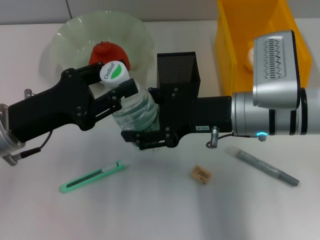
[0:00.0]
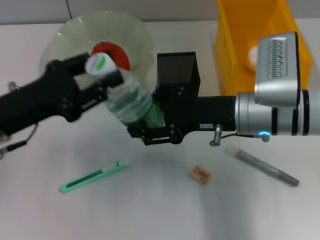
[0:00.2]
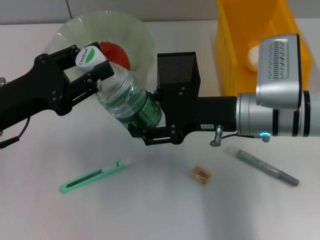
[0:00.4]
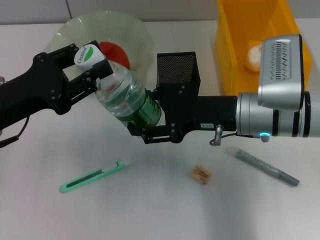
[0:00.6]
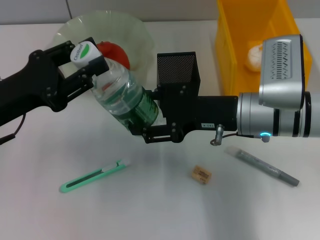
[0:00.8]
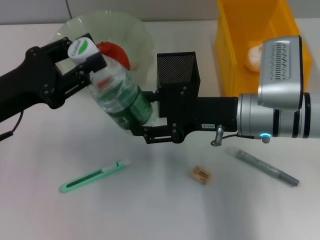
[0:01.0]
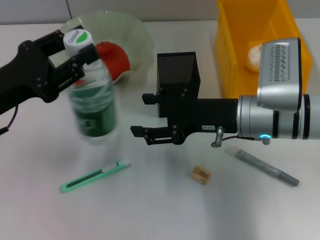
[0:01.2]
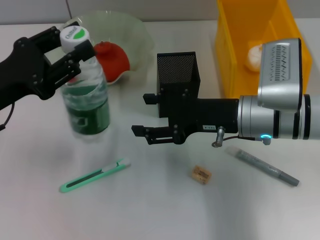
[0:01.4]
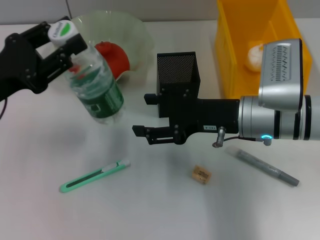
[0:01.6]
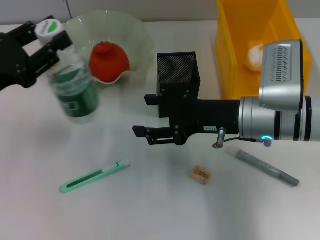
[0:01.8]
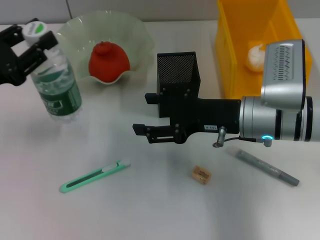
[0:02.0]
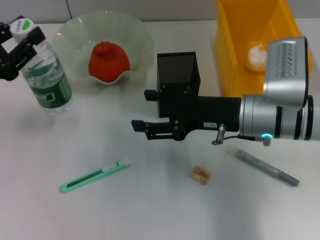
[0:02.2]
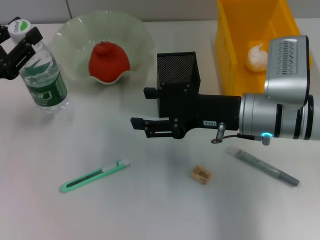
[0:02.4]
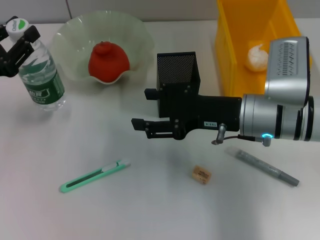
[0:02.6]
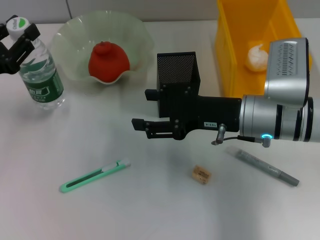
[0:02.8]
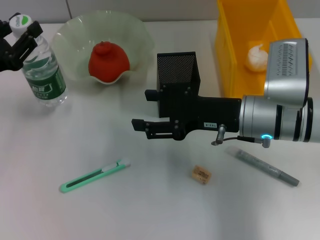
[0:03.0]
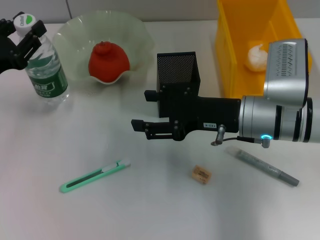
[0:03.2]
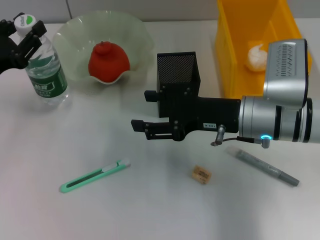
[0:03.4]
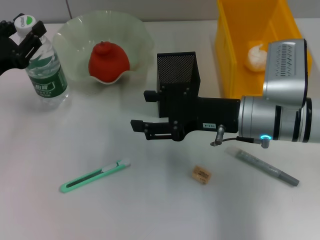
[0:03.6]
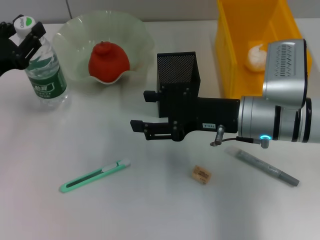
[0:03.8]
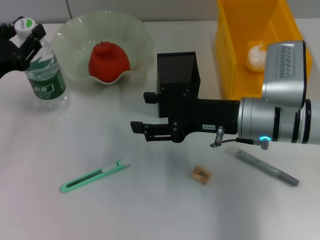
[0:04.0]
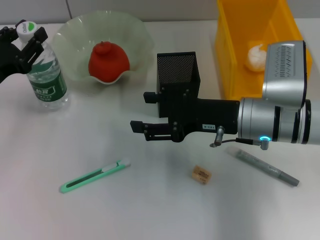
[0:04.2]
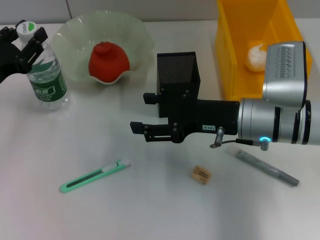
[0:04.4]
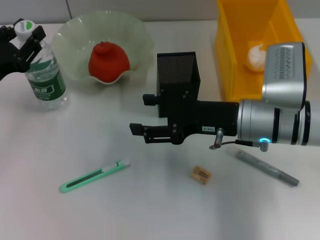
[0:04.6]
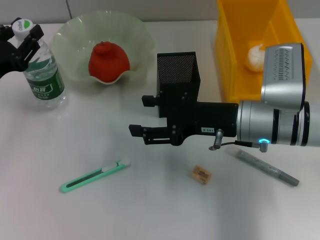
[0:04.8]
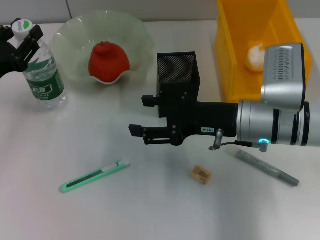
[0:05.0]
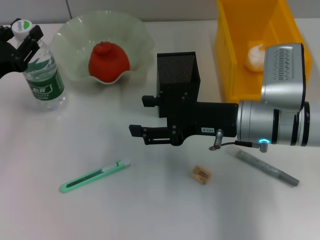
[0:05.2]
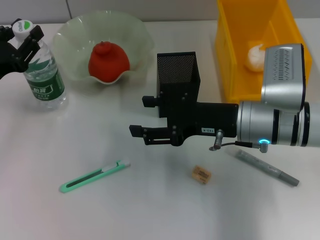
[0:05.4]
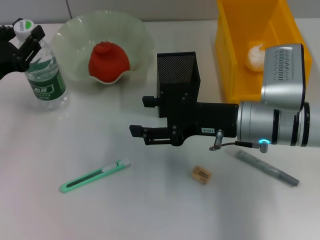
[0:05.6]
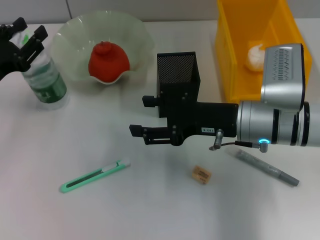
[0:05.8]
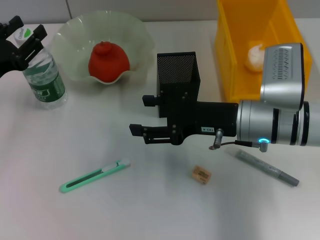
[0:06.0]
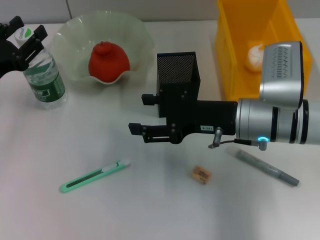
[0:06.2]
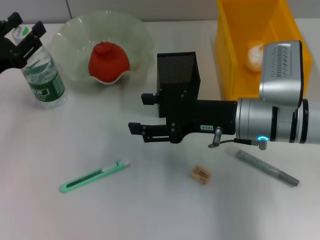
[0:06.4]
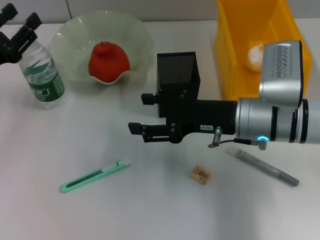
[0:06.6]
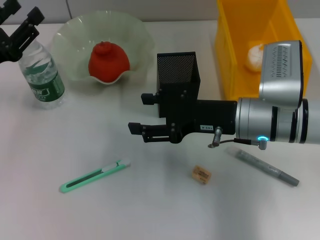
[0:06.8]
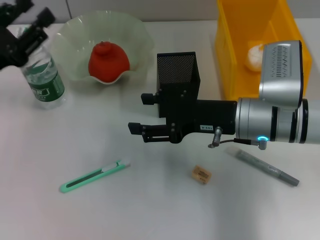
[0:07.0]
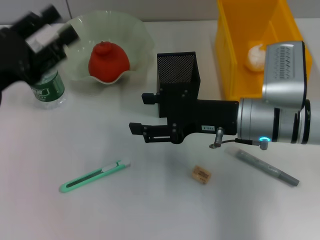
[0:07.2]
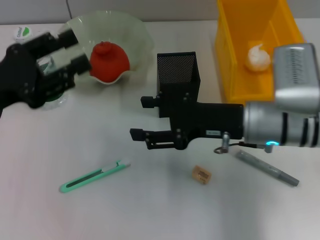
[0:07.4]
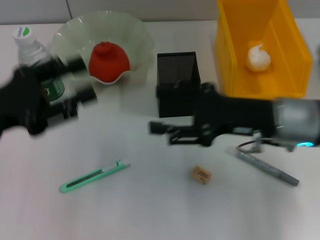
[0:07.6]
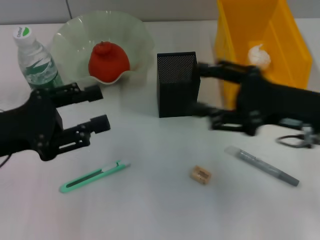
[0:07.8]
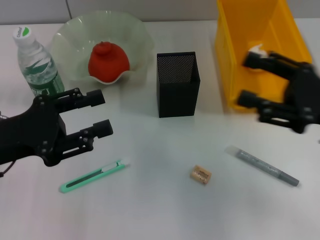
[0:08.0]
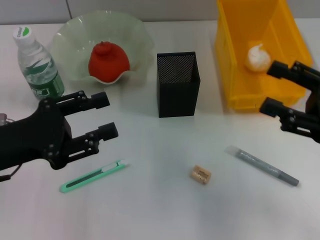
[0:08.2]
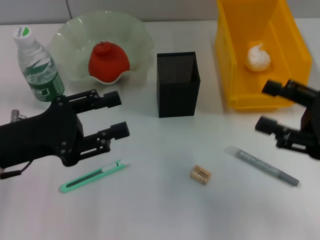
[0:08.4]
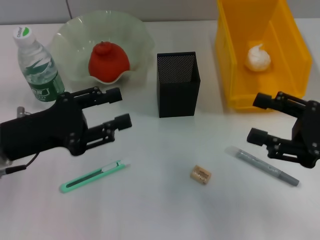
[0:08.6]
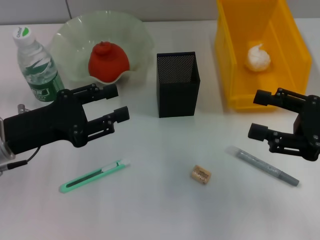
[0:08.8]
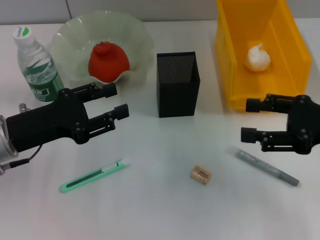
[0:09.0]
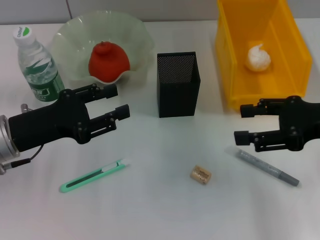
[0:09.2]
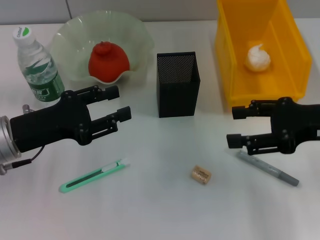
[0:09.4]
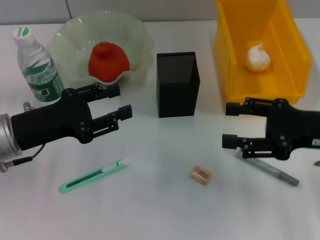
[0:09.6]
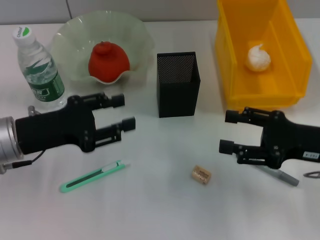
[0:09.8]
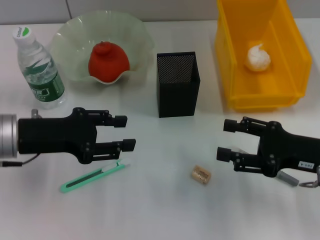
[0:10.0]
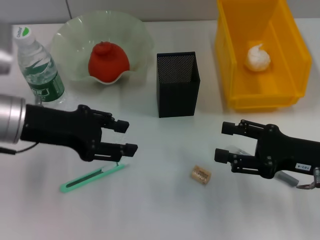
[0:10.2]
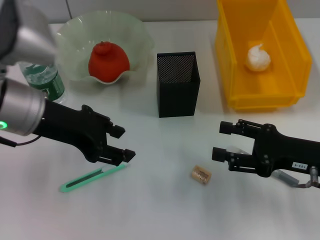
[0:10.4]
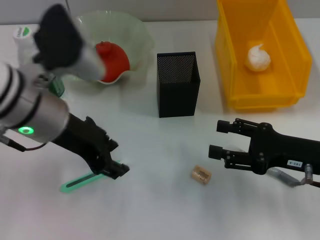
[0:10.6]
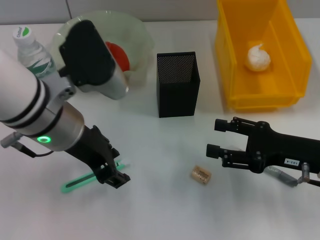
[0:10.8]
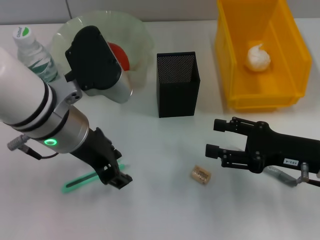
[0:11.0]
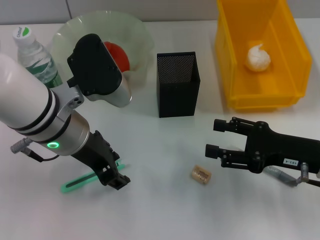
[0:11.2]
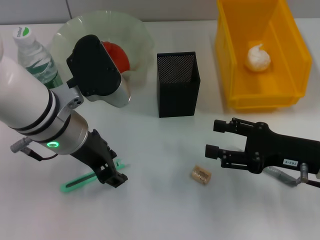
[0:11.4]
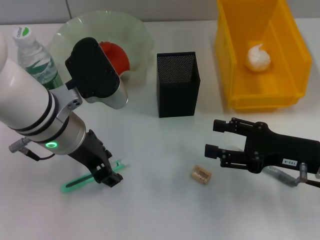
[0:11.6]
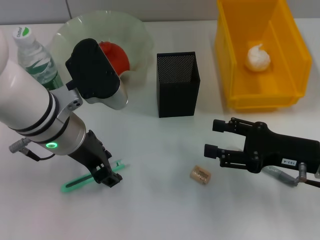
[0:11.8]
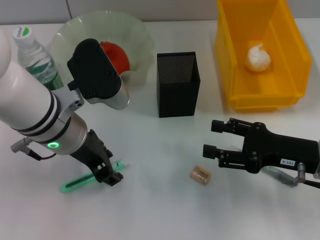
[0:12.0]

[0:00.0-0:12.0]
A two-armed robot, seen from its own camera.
Step, 0:01.2 to 0:06.0: Place the water bottle on the table with the left hand.
0:00.0 to 0:01.6: The left gripper changes place by approximately 5 cm.
0:03.0 to 0:04.4: The grippers move only a little.
0:04.4 to 0:06.0: Both grippers stay put.
0:06.0 to 0:07.6: The left gripper is displaced backward by approximately 5 cm.
0:07.6 to 0:09.0: The left gripper moves some 5 cm. Meanwhile the right gripper moves to the right, roughly 10 cm.
0:09.0 to 0:10.4: The left gripper goes roughly 10 cm upward and to the right, while the right gripper shifts approximately 10 cm downward.
0:10.4 to 0:12.0: The left gripper heads to the right, covering some 5 cm.

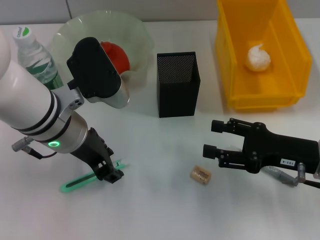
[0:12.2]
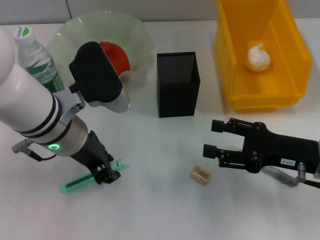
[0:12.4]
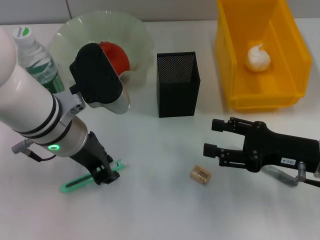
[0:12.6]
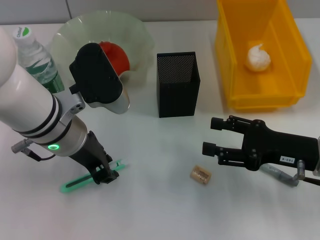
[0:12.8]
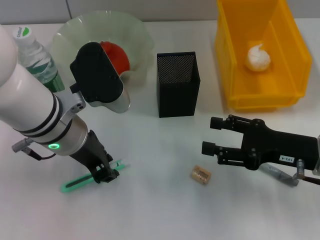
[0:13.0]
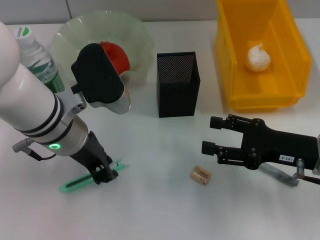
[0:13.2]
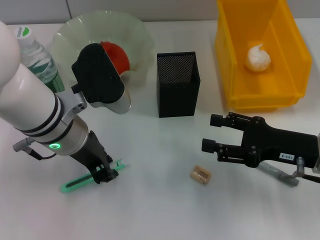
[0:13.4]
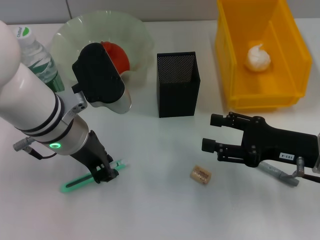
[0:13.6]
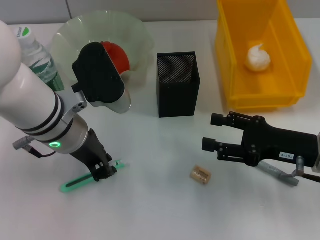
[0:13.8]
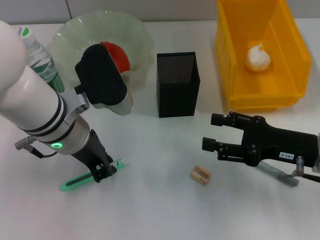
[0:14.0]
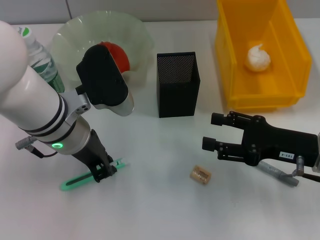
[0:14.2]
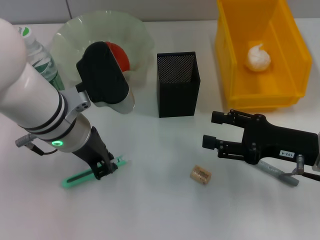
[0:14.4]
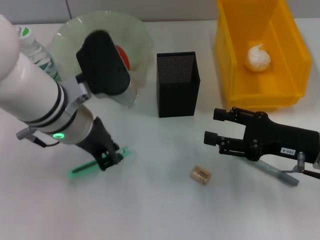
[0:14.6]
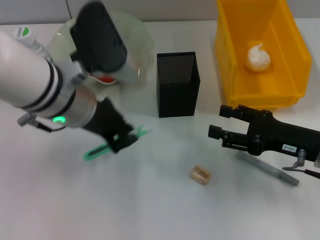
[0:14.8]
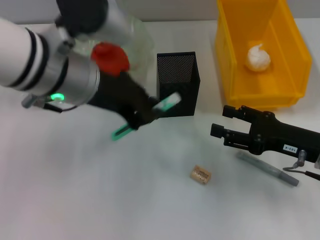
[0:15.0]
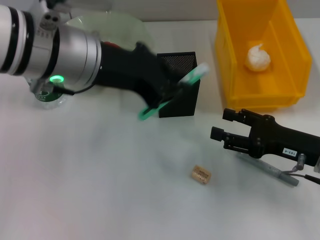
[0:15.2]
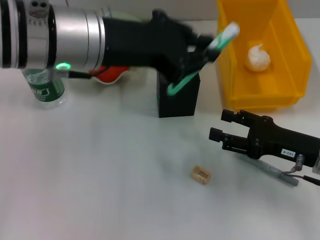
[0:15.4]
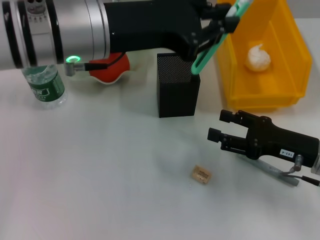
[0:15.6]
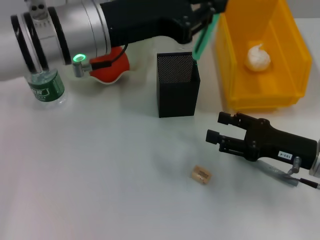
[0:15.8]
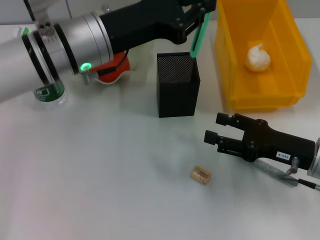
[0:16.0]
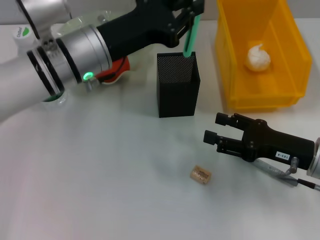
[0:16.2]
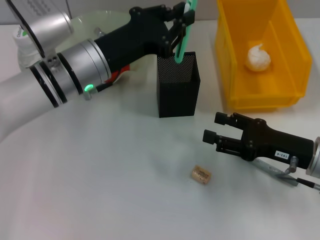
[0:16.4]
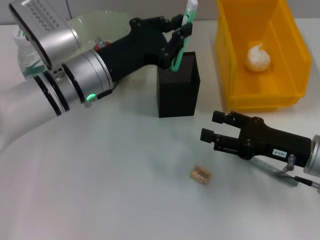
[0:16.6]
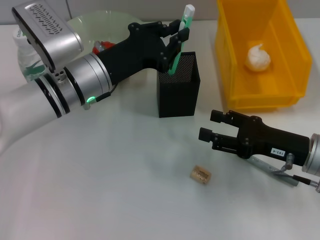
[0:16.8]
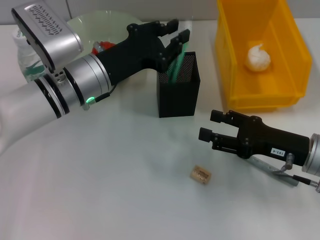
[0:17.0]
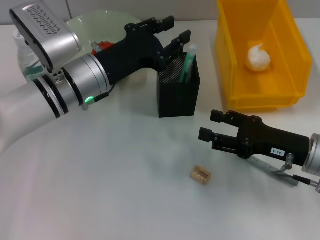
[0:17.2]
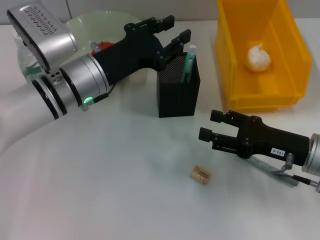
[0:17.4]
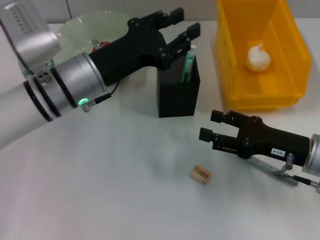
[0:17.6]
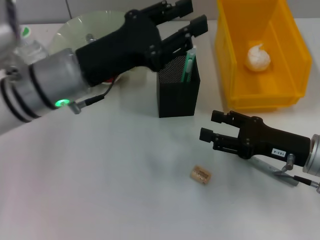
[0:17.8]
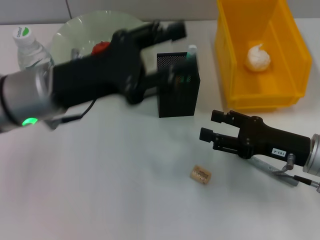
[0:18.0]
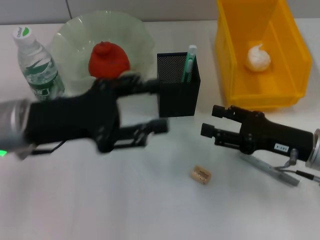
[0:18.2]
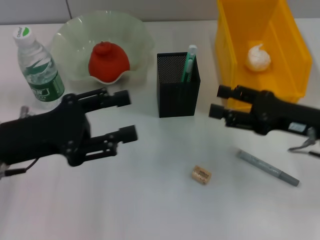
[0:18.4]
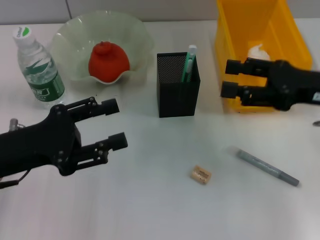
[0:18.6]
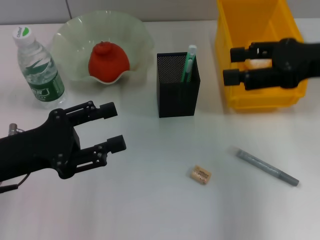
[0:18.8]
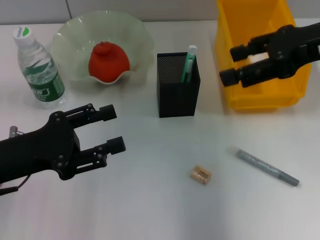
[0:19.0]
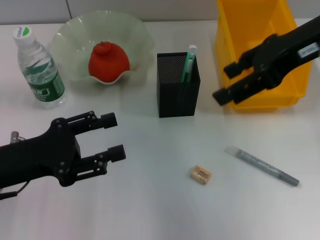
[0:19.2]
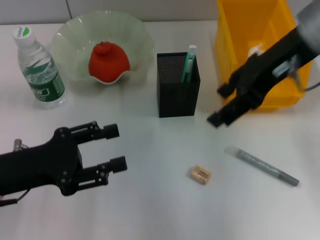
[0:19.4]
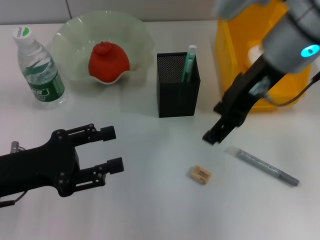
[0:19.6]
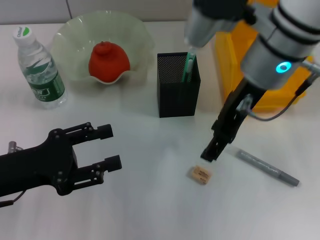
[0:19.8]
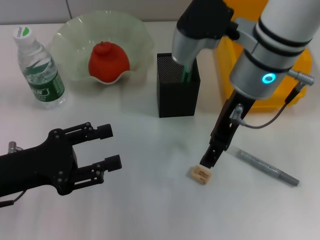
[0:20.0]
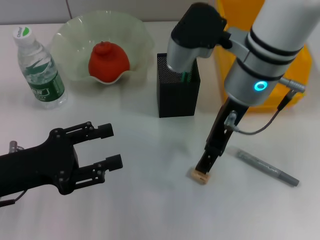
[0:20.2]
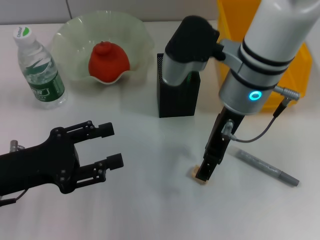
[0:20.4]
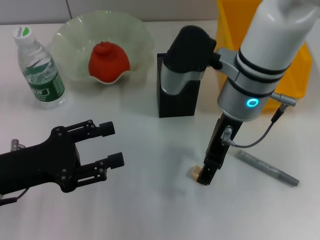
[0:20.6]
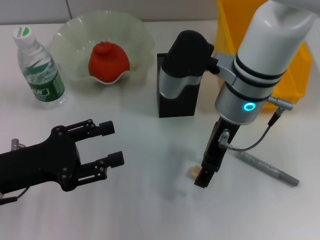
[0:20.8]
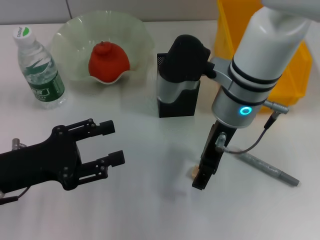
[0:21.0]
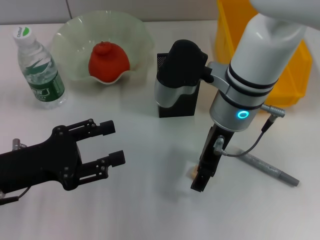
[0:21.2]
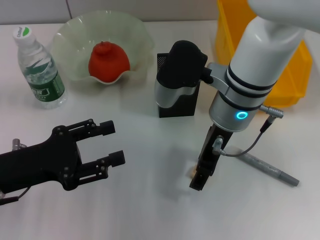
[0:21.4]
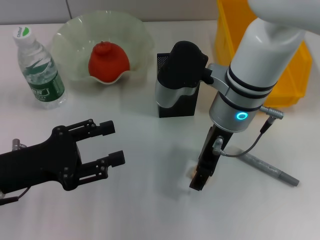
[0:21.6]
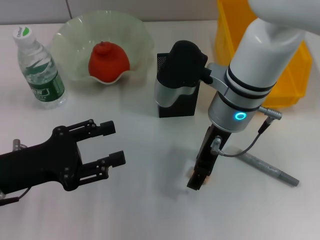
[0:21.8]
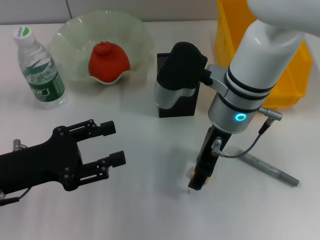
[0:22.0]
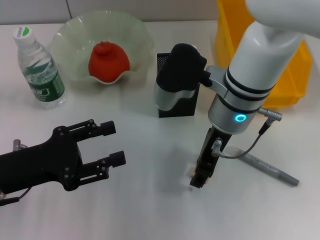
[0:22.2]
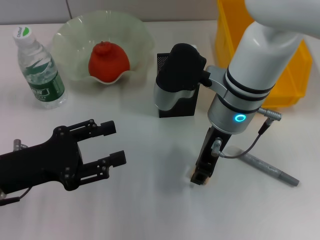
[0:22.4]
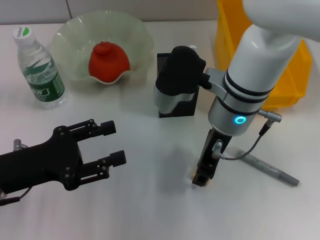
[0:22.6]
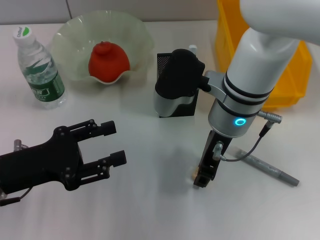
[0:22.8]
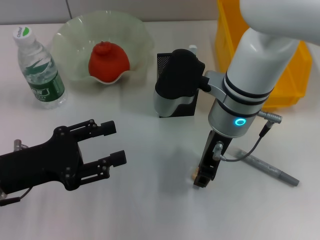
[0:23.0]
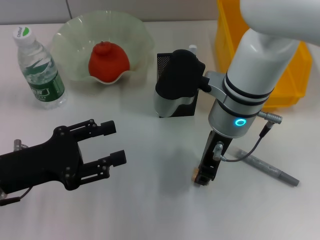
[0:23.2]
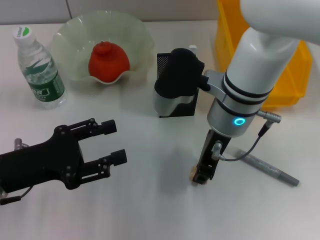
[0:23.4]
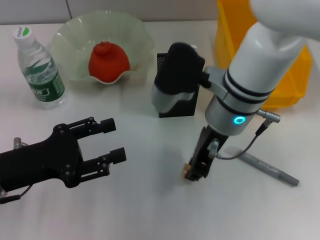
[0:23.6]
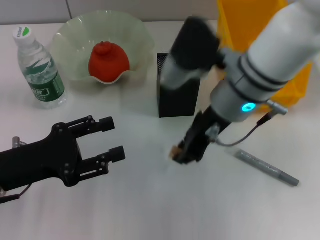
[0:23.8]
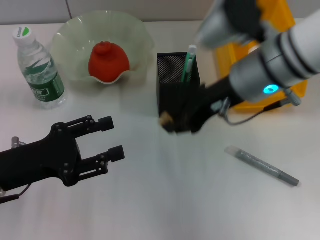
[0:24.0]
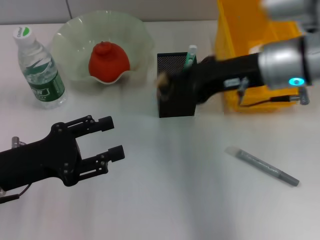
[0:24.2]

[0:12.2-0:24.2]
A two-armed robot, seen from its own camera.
Step, 0:12.2 to 0:14.2: Grab the blue utility knife with the left hand.
Step, 0:14.4 to 0:17.2: Place the blue utility knife into the pen holder with the left hand.
Step, 0:17.4 to 0:23.4: Grab the eraser with the right hand.
0:12.2 to 0:13.8: The left gripper closes up.
0:13.8 to 0:15.2: The left gripper shifts roughly 10 cm upward.
0:15.2 to 0:16.6: The left gripper moves downward, approximately 10 cm.
0:16.6 to 0:18.2: The left gripper heads to the left and backward, covering roughly 10 cm, and opens its fingers.
0:18.2 to 0:19.8: The right gripper heads upward, to the left and forward, covering about 25 cm. Meanwhile the left gripper heads to the left and backward, covering roughly 10 cm.
0:19.8 to 0:21.2: The right gripper shifts about 5 cm downward.
0:21.2 to 0:22.6: The right gripper closes.
0:22.6 to 0:24.2: The right gripper travels to the right by approximately 10 cm.
